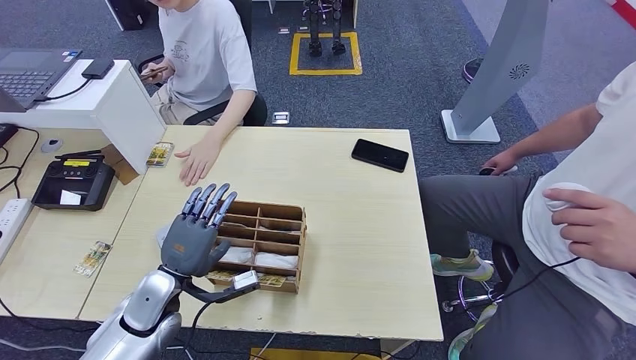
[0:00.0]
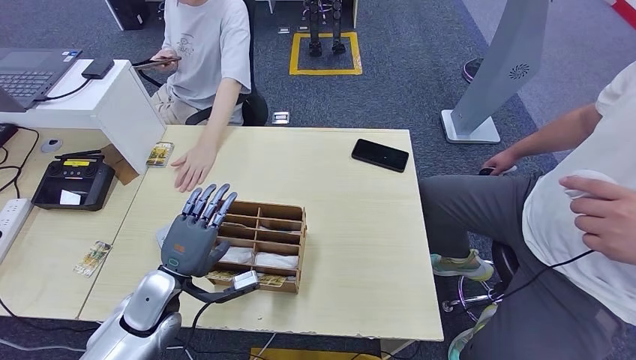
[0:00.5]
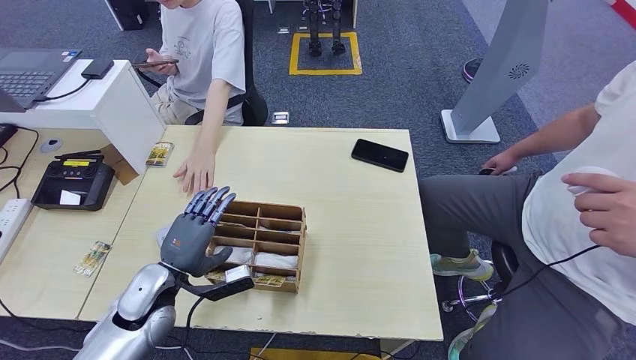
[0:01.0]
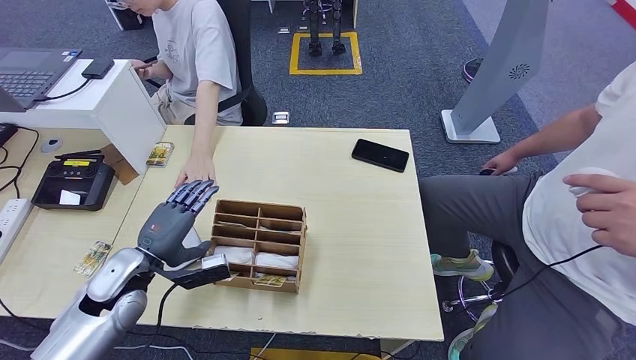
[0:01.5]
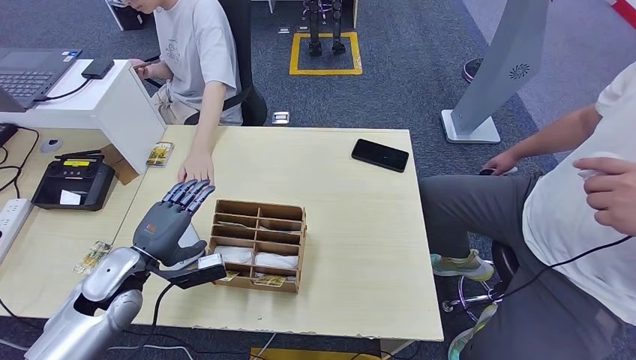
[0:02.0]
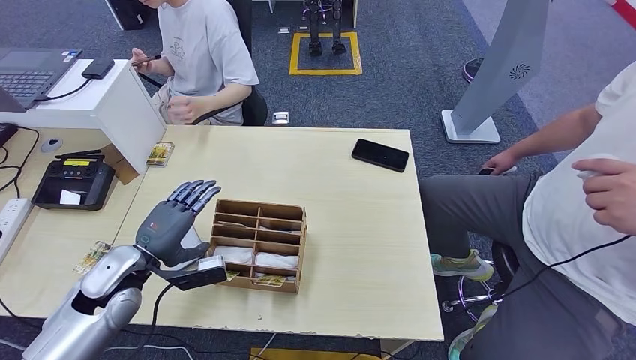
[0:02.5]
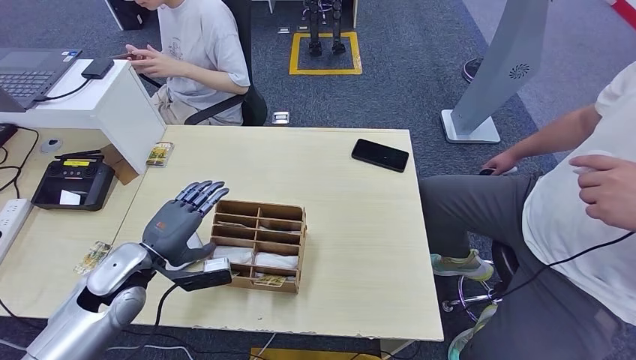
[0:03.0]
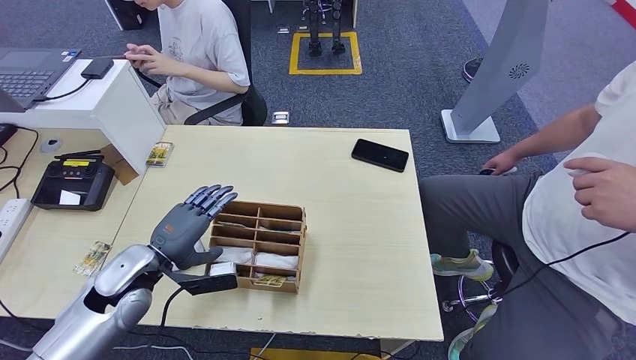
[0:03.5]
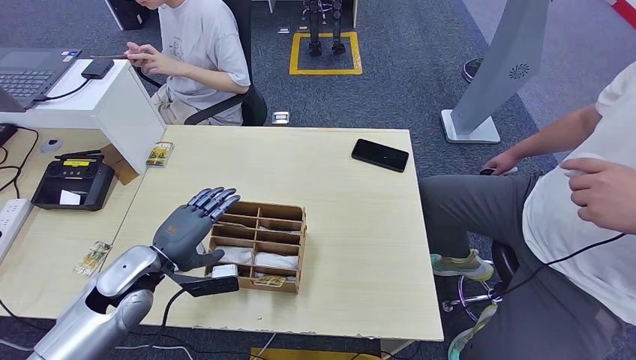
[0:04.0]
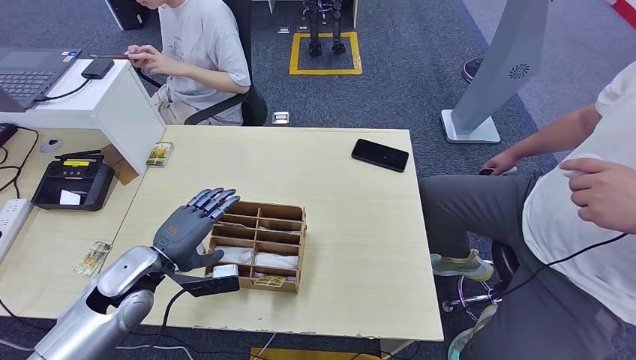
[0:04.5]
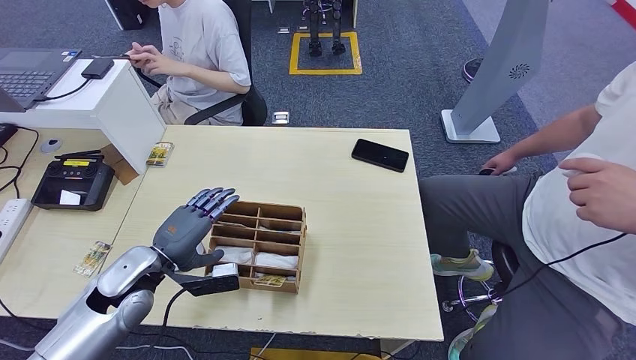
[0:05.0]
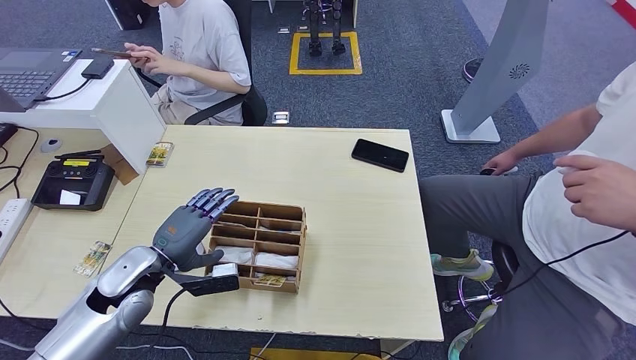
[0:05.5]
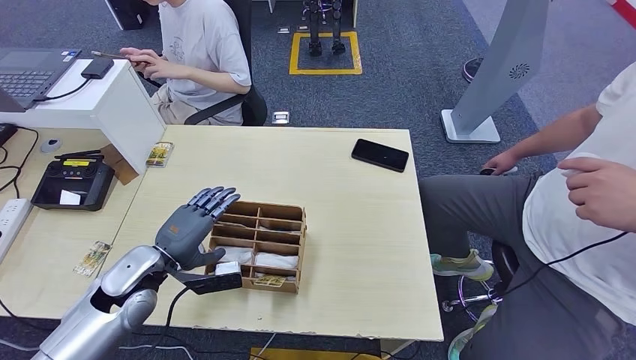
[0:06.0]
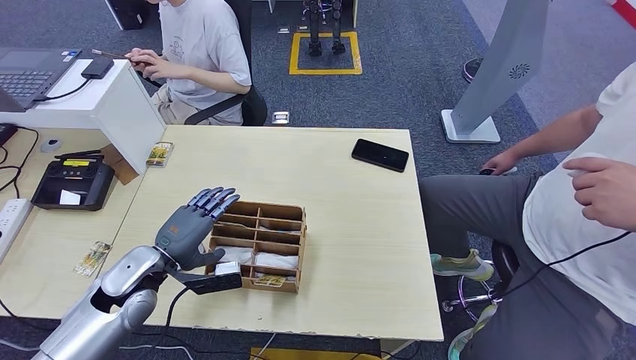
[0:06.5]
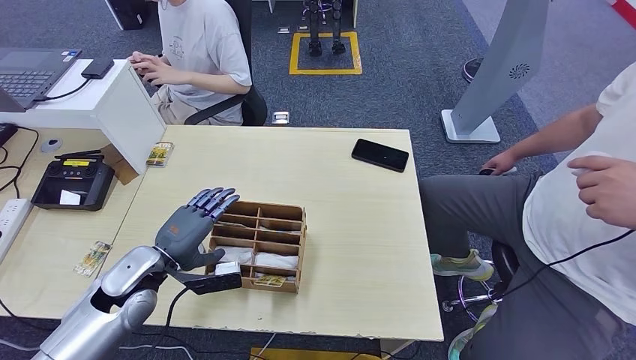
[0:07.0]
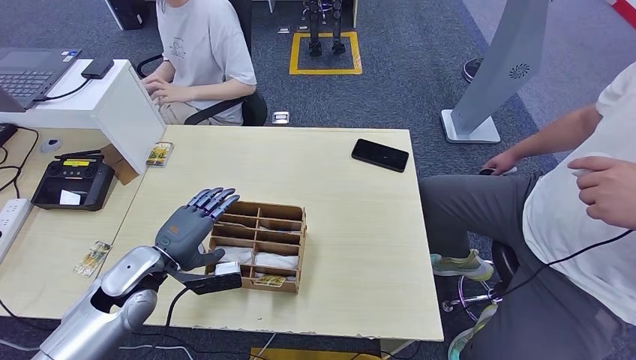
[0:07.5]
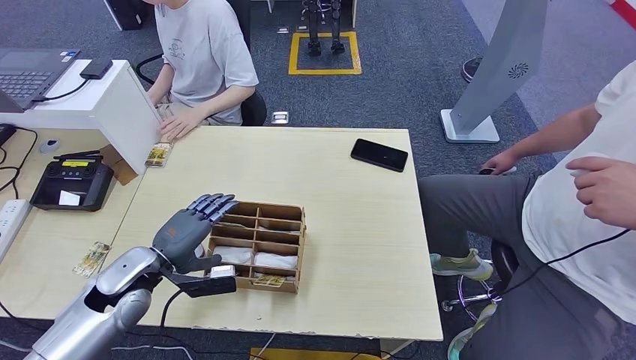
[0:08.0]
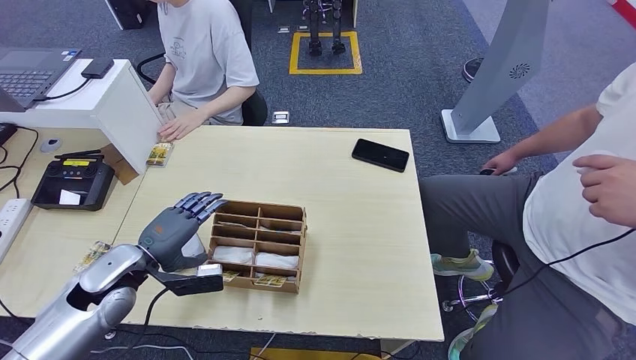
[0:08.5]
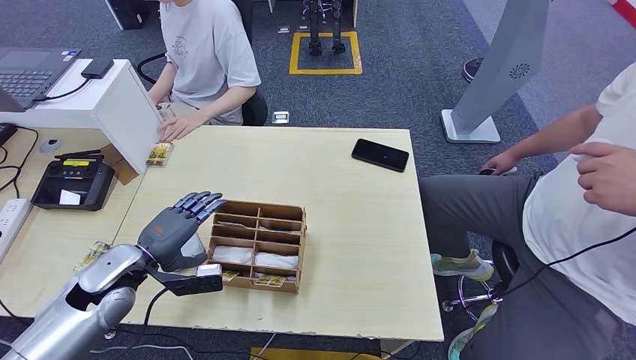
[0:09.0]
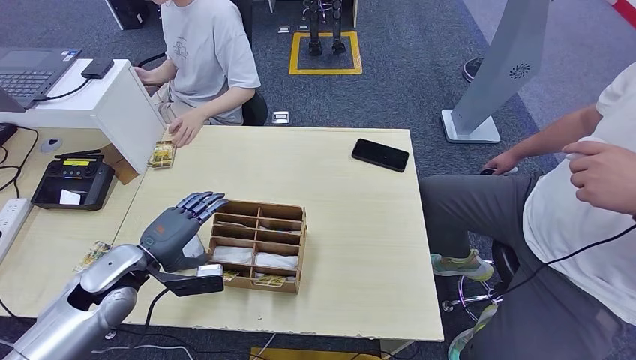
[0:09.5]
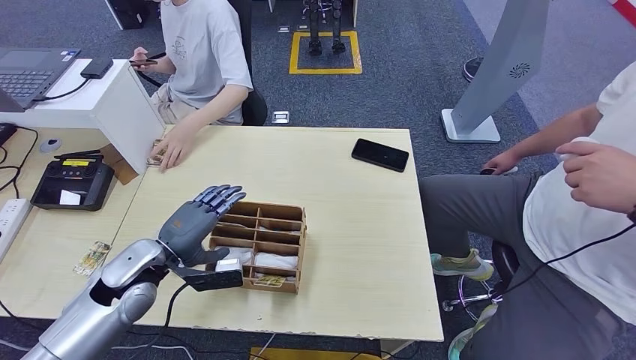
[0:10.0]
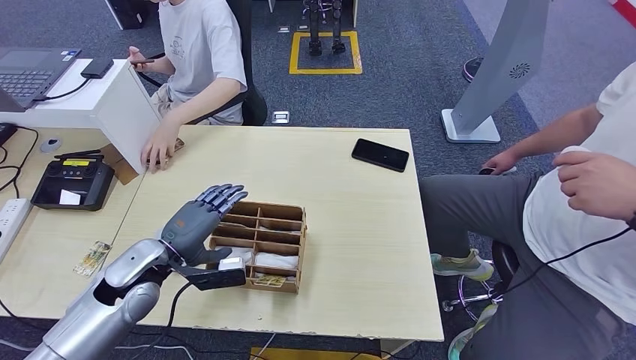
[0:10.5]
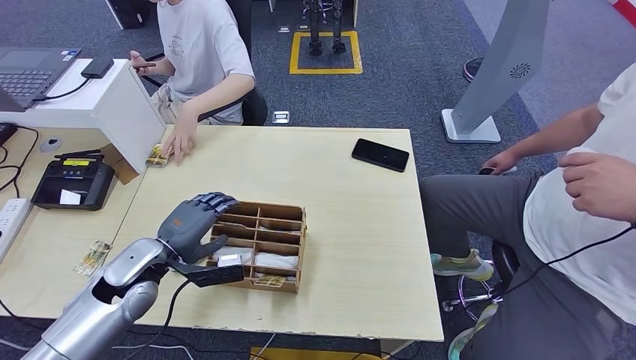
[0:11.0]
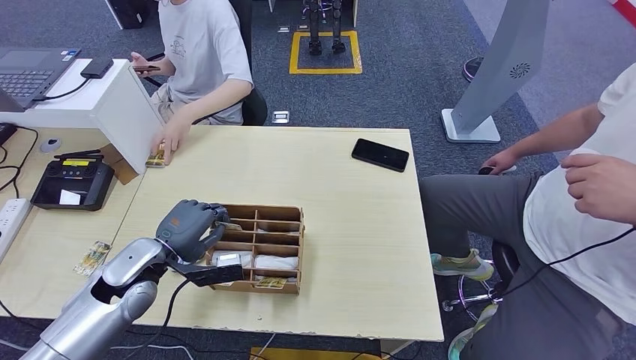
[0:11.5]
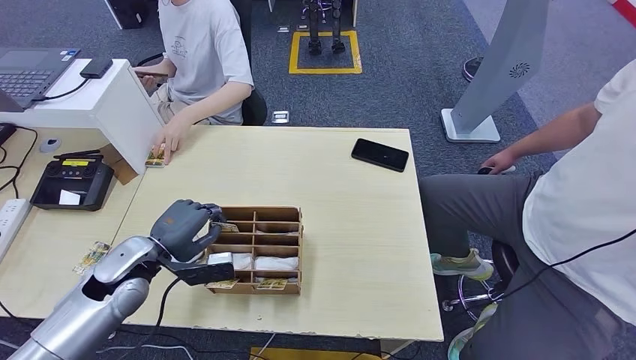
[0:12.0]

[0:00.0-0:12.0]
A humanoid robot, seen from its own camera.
0:00.0 to 0:02.0: The left hand moves to the left, approximately 5 cm.
0:02.0 to 0:04.0: The hands move only a little.
0:04.0 to 0:08.0: Neither hand changes place.
0:08.0 to 0:12.0: The hands stay close to where they were, moving slightly.

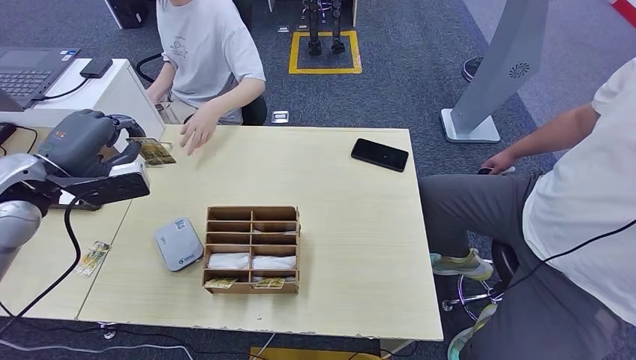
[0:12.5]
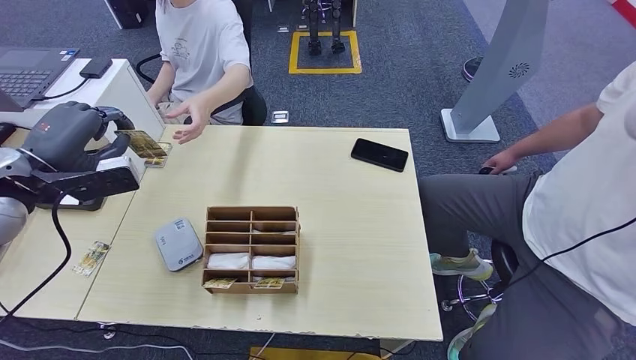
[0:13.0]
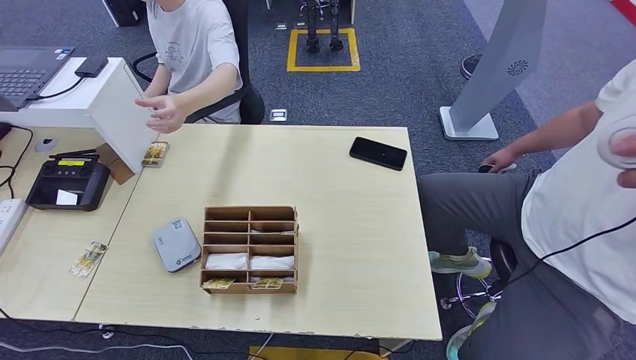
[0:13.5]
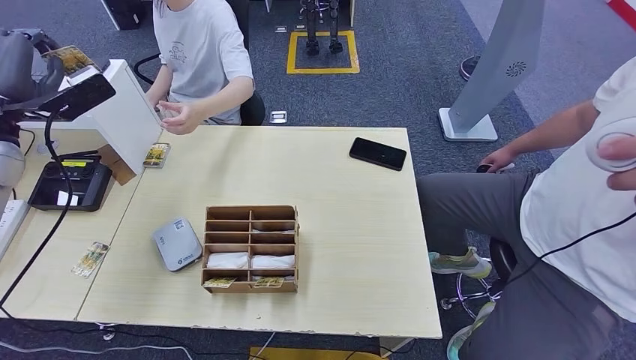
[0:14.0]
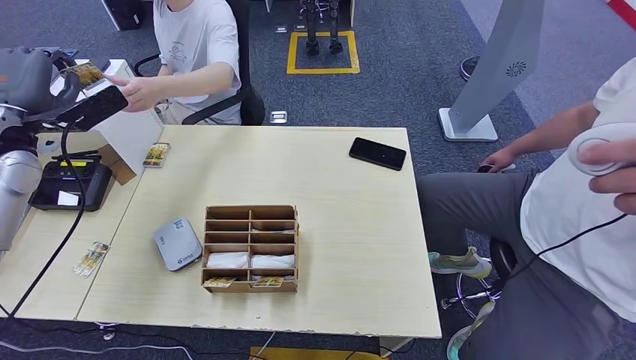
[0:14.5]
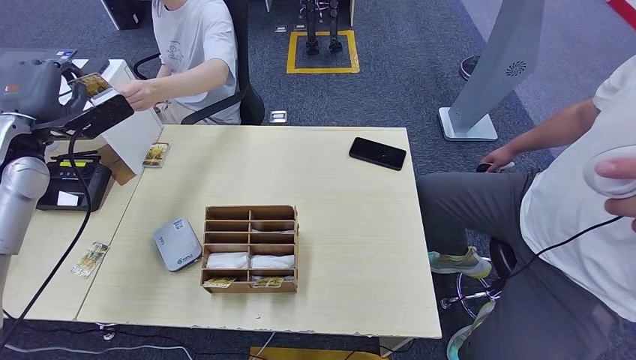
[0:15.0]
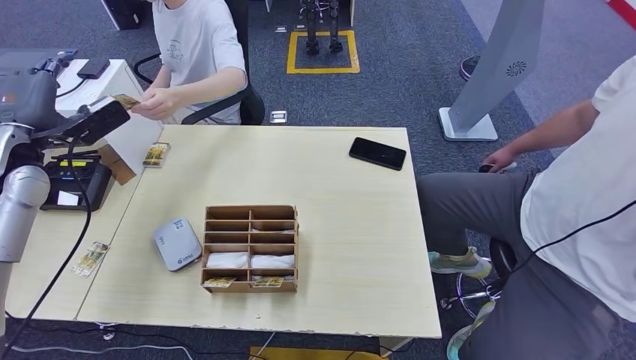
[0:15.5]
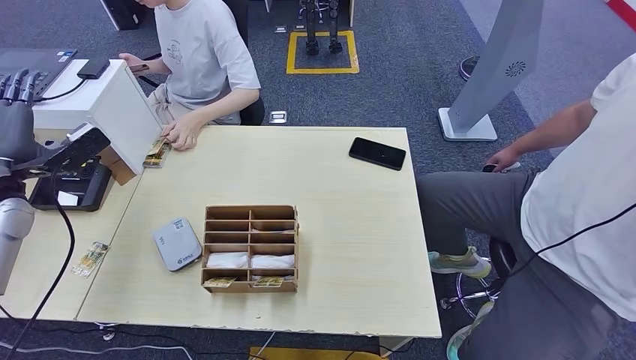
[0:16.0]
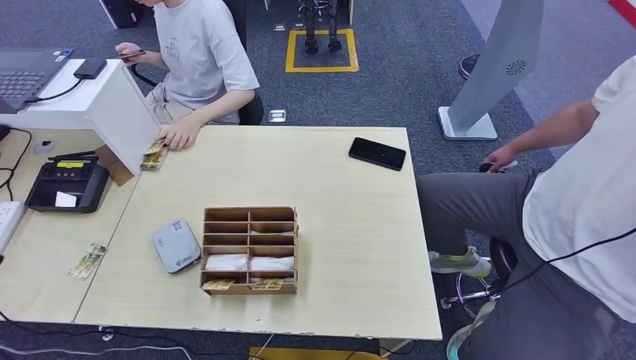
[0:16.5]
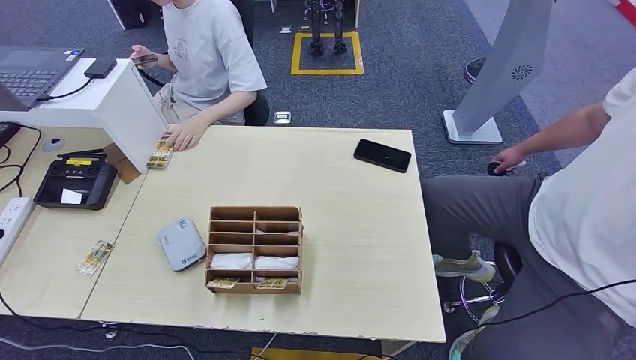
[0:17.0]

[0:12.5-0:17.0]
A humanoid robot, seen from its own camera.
Step, 0:12.5 to 0:17.0: Hand the room key to the person.
0:12.5 to 0:14.5: The left hand travels forward by approximately 5 cm, and travels upward and back again, about 25 cm each way.

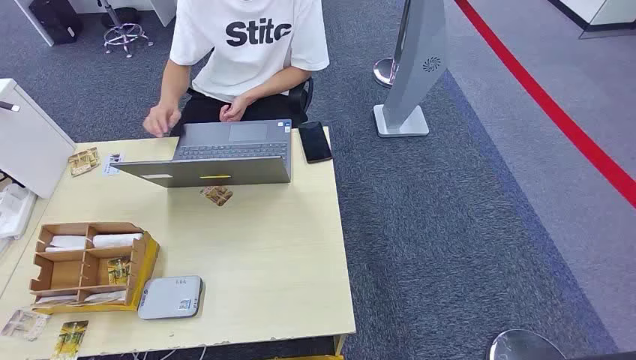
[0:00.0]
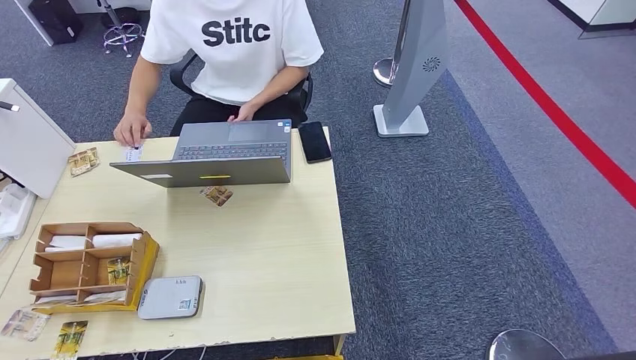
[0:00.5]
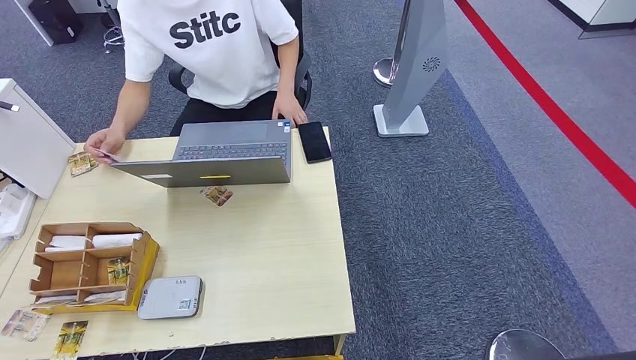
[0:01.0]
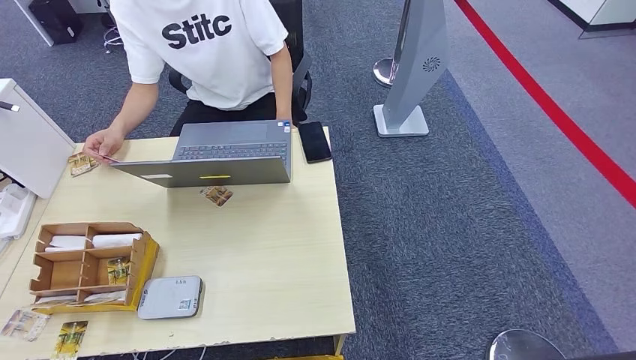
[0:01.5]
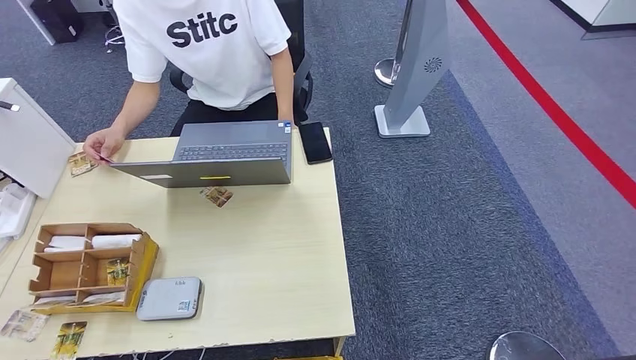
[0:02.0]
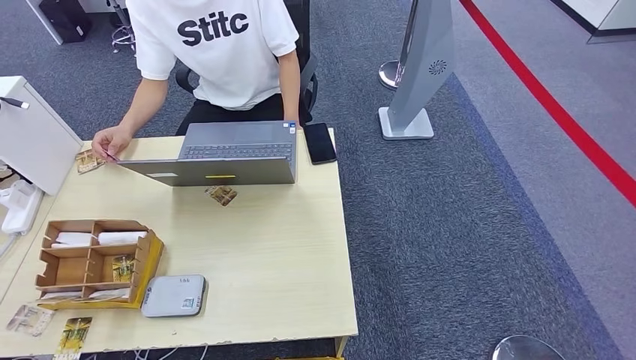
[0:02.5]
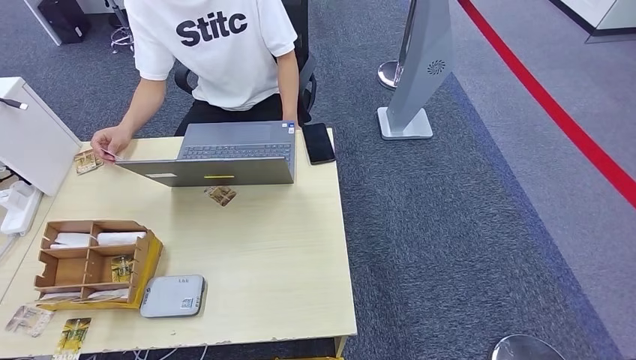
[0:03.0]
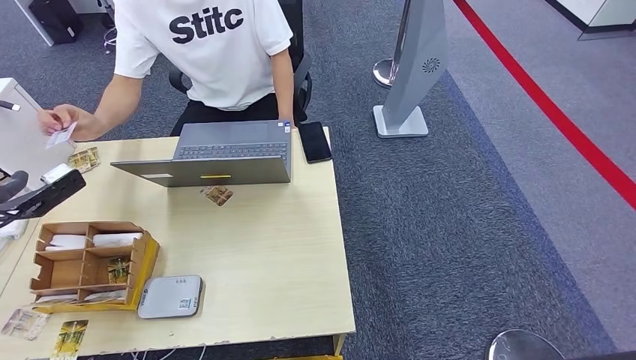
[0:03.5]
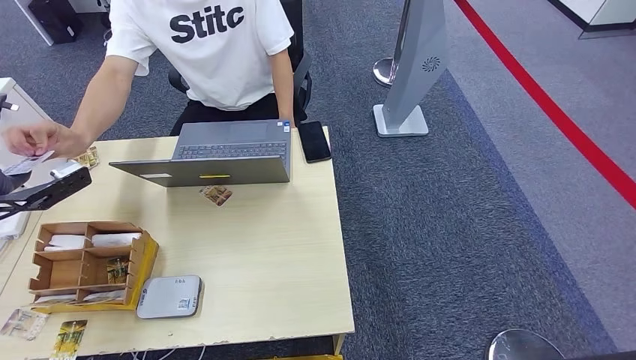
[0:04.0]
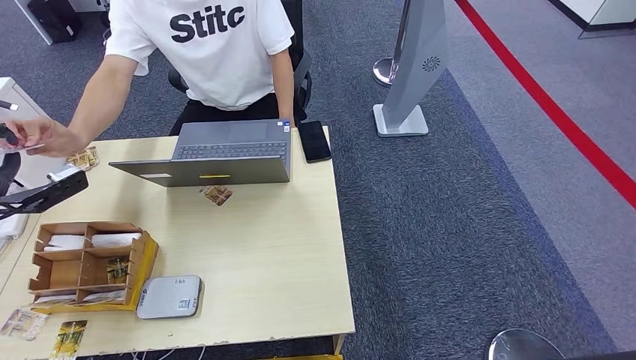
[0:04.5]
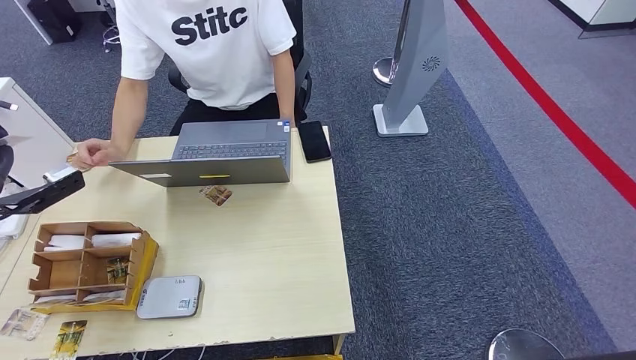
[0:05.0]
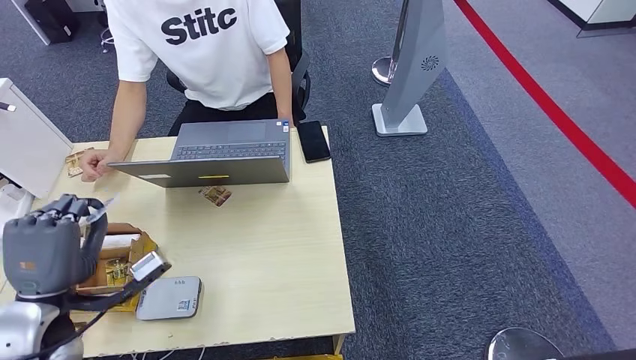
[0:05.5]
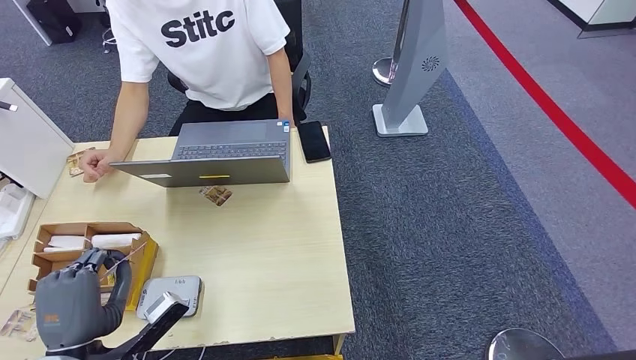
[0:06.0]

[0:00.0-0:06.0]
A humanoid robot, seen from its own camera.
Step, 0:00.0 to 0:05.0: Take the ID card from the person's hand.
0:02.0 to 0:04.0: The left hand goes some 50 cm forward and upward.
0:04.0 to 0:06.0: The left hand shifts about 25 cm backward, to the right and downward.
